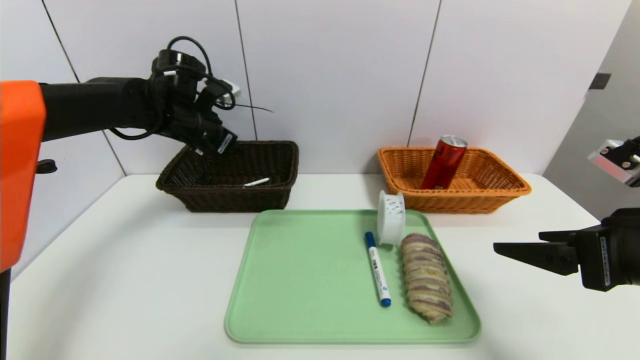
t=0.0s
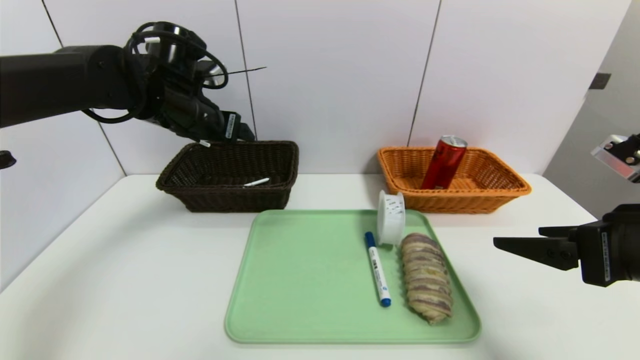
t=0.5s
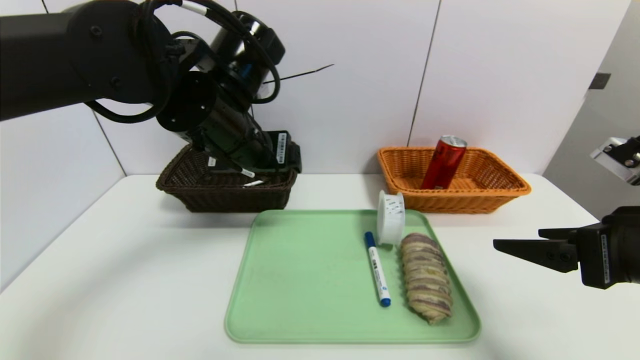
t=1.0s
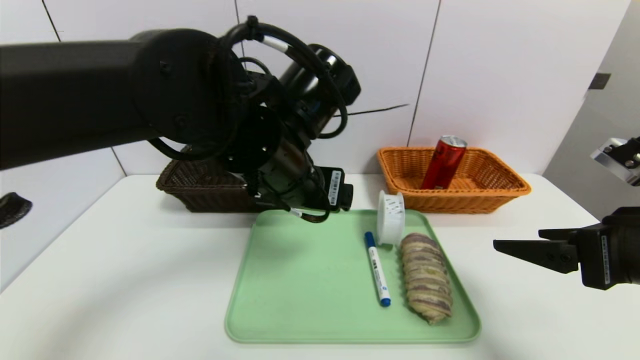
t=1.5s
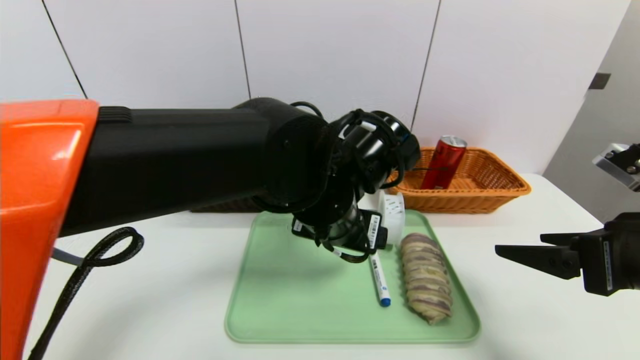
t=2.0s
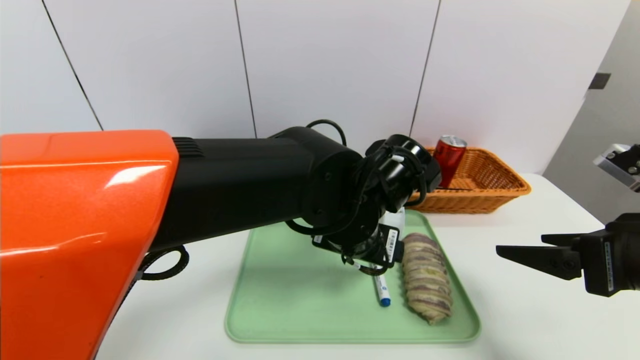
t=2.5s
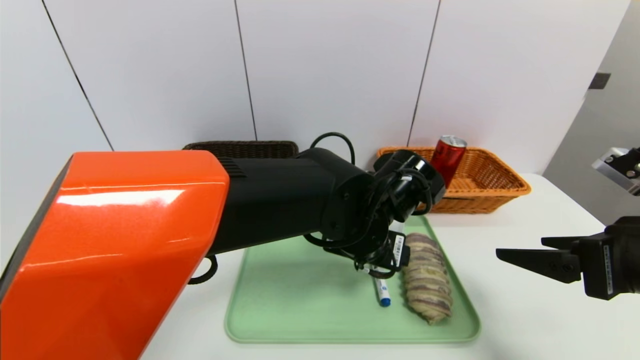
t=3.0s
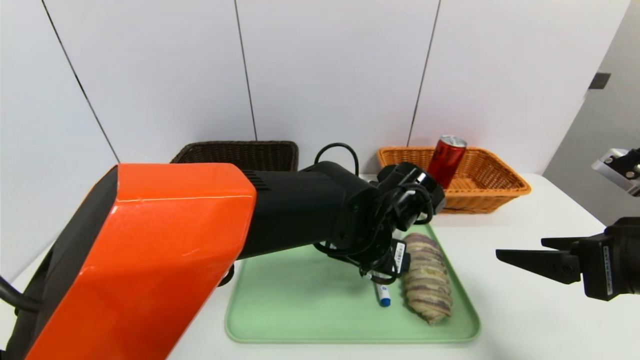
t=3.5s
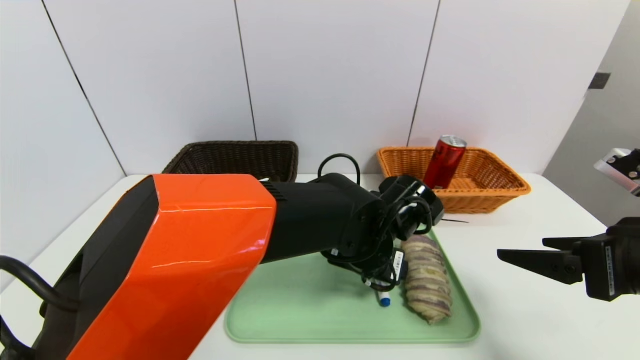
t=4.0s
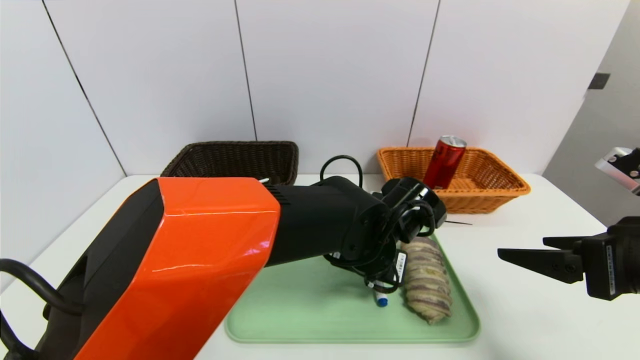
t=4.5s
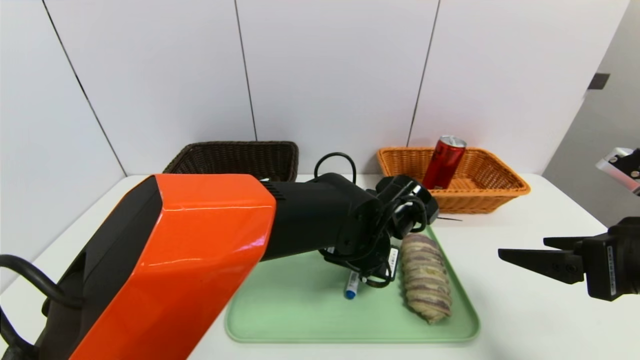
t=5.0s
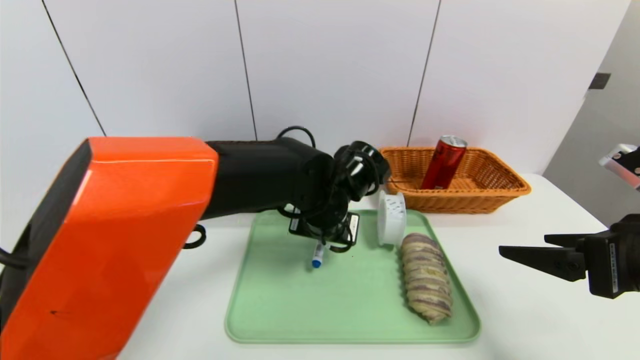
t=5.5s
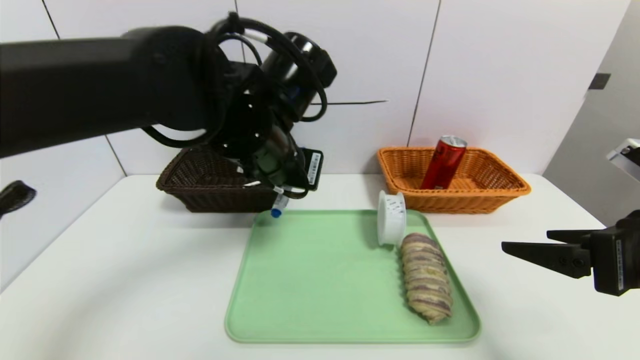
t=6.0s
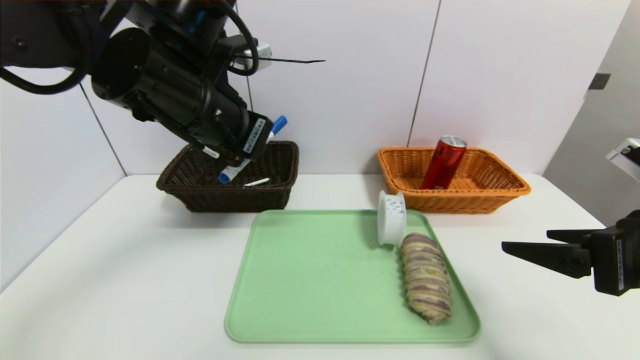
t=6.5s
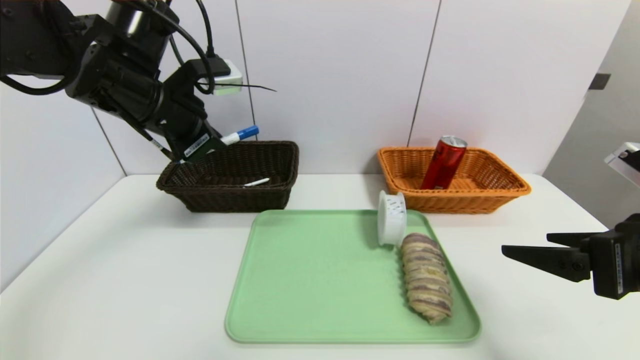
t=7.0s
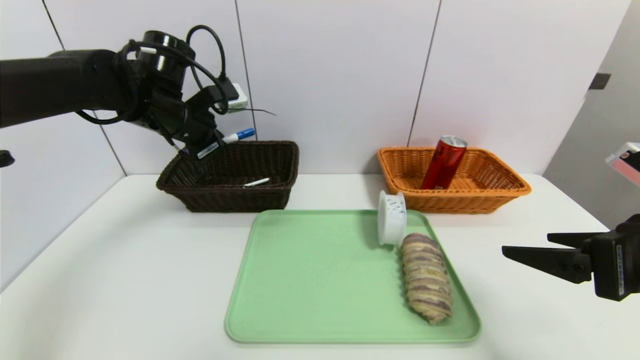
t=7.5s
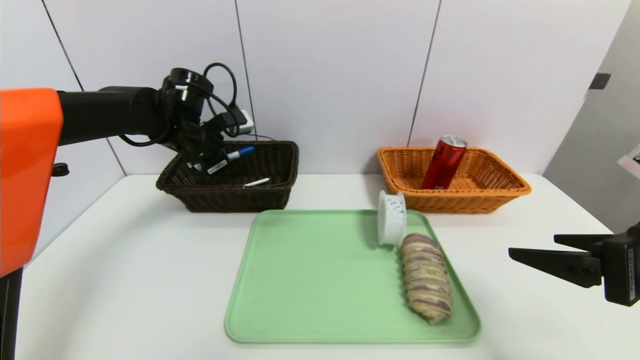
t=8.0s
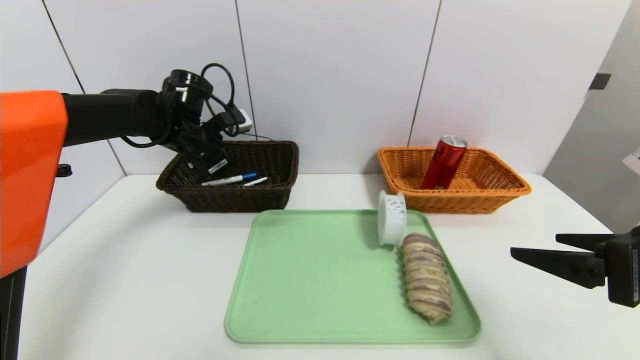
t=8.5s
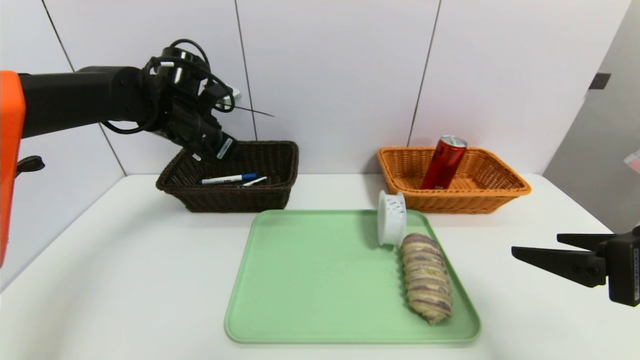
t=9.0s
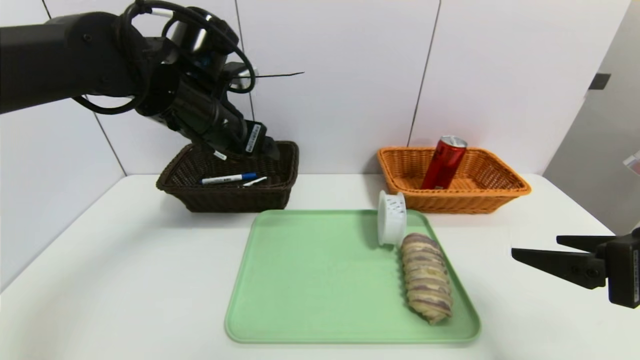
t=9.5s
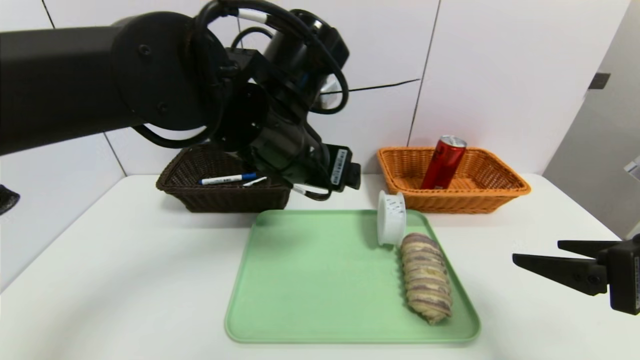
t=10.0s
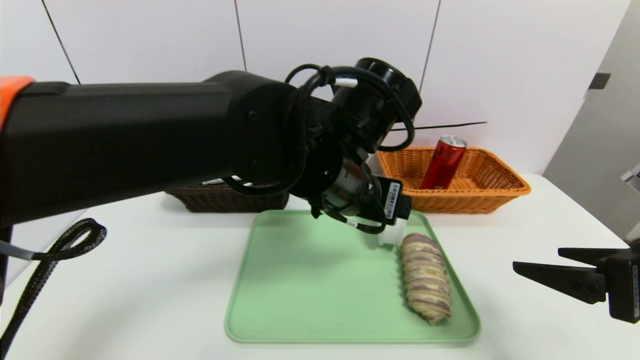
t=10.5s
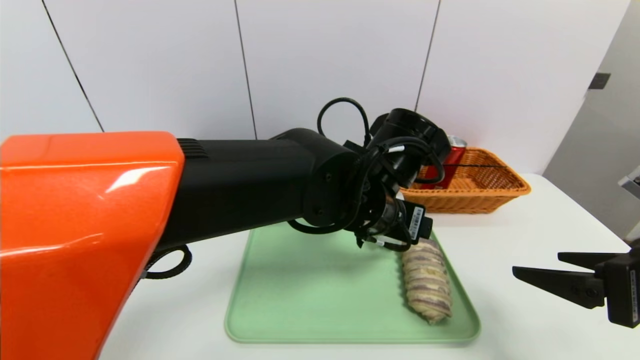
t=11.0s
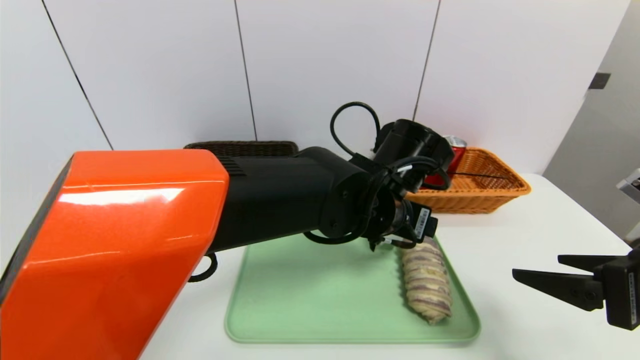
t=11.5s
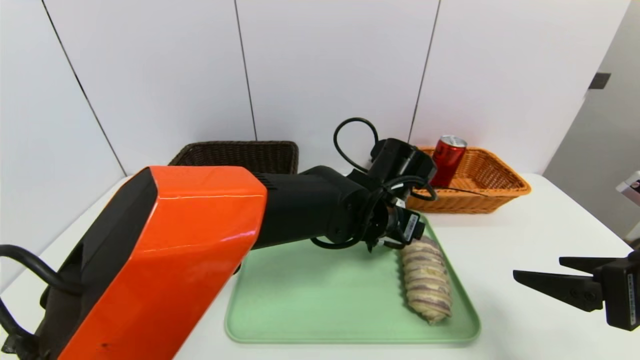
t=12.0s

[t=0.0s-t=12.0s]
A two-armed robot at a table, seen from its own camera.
Task of the whole recording: place the food in the right basket with the right gripper, and place the non food items in the left basket with the left gripper.
Step, t=0.5s to t=9.0s: Grasp the blue marker and put it in the left basket.
t=0.0s to t=2.0s: The left gripper shifts roughly 30 cm to the right and backward.
t=2.0s to t=4.0s: The left gripper travels downward and to the right by about 10 cm.
t=4.0s to t=6.0s: The left gripper goes some 20 cm upward and to the left, and closes.
t=6.0s to t=8.0s: The left gripper goes some 25 cm forward and to the left.
t=8.0s to t=10.0s: The left gripper moves to the right and backward, roughly 25 cm, and opens.
t=10.0s to t=12.0s: The left gripper travels downward and to the right by about 15 cm.

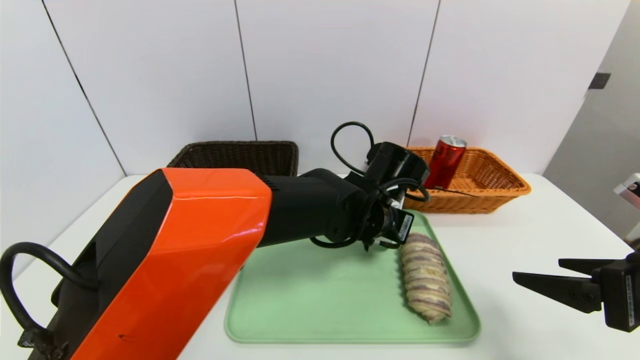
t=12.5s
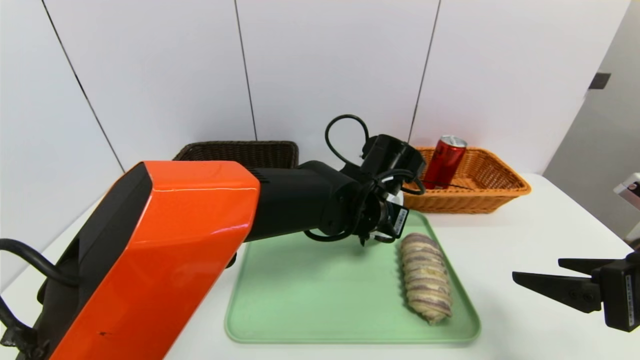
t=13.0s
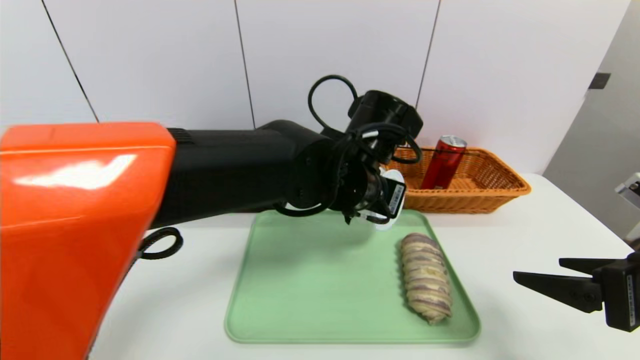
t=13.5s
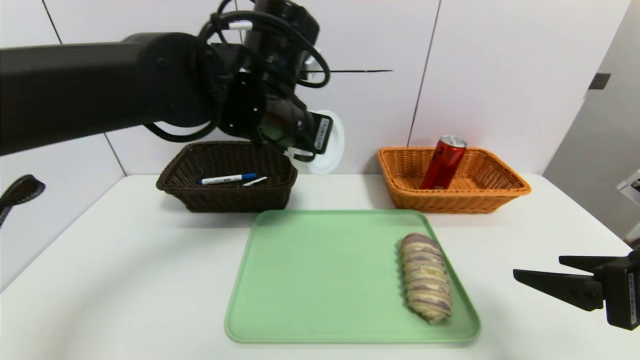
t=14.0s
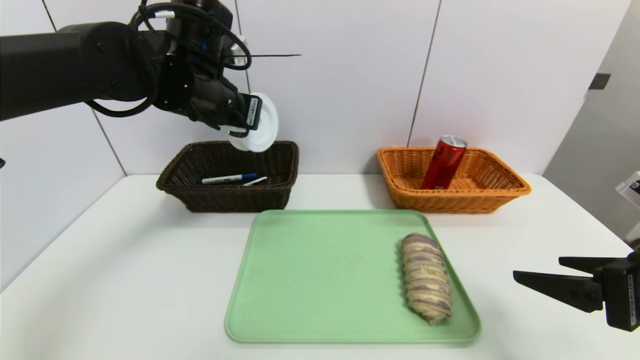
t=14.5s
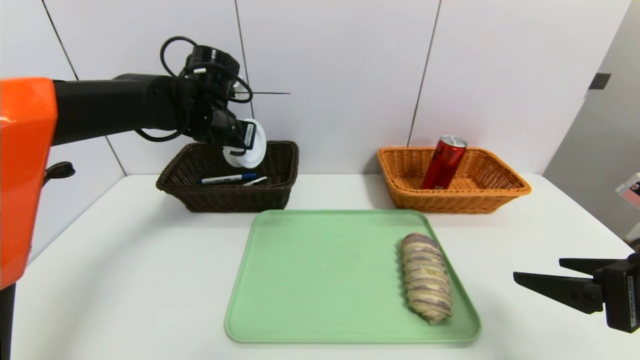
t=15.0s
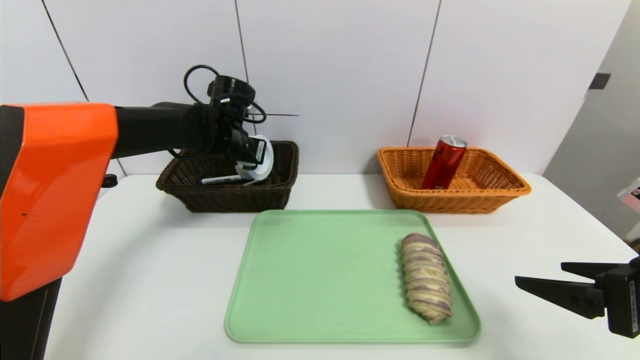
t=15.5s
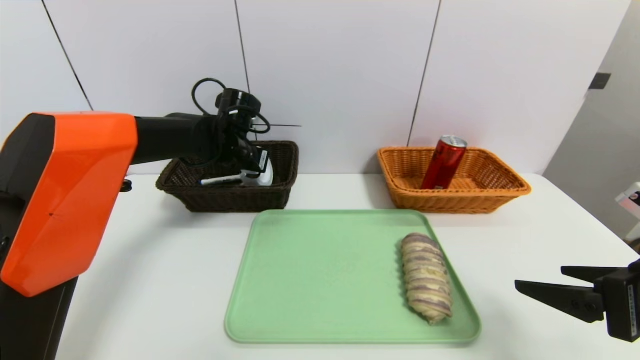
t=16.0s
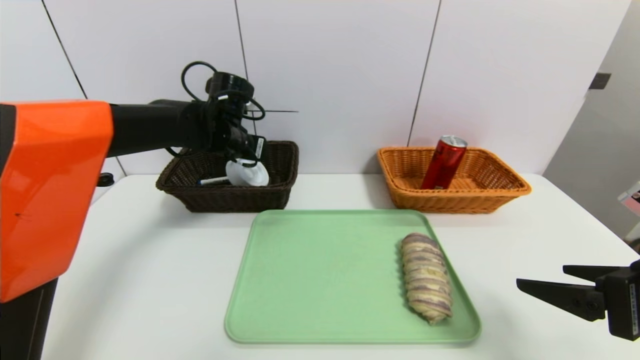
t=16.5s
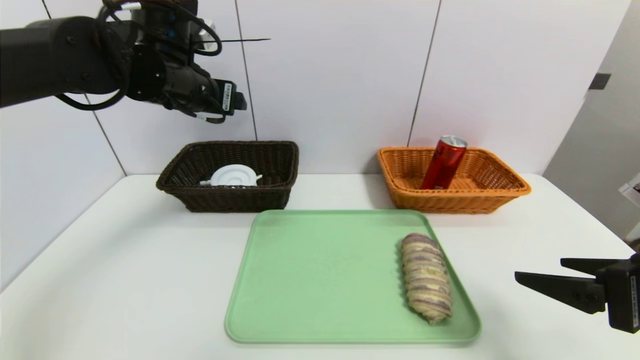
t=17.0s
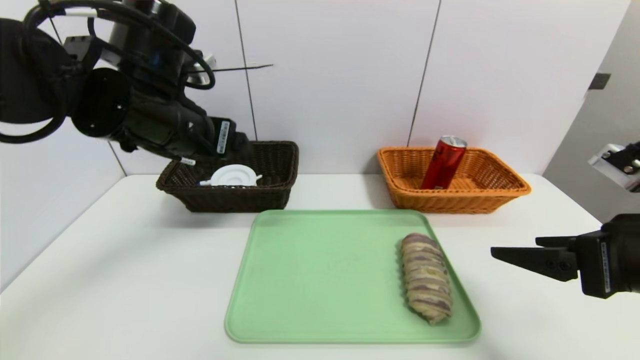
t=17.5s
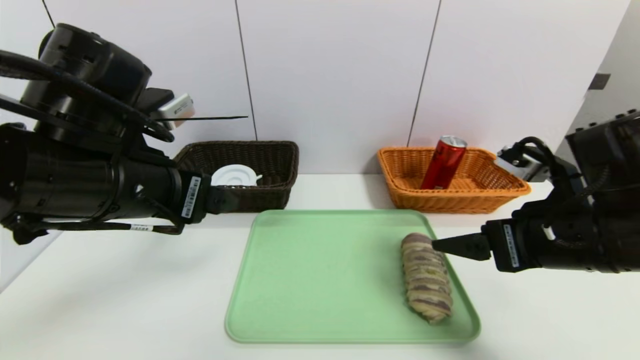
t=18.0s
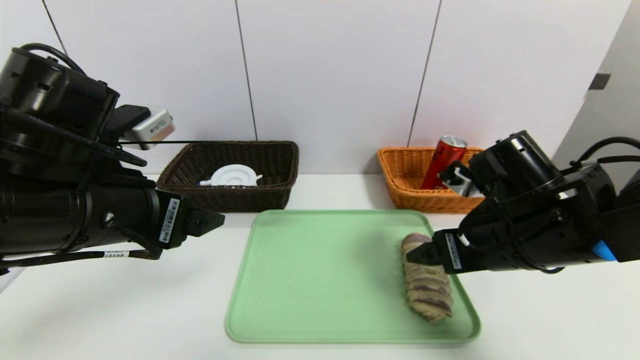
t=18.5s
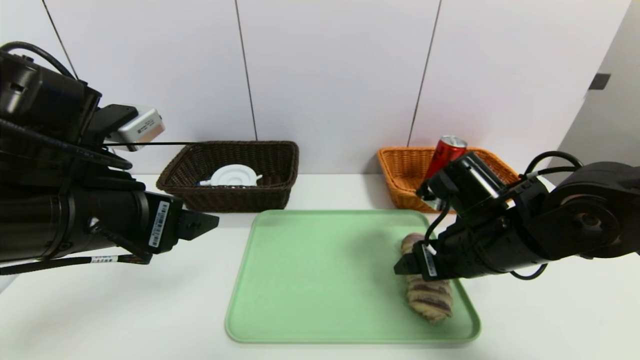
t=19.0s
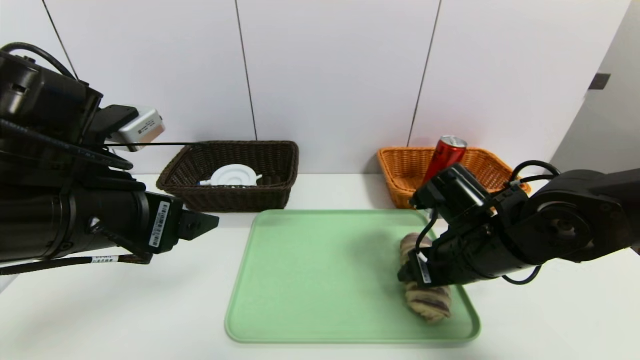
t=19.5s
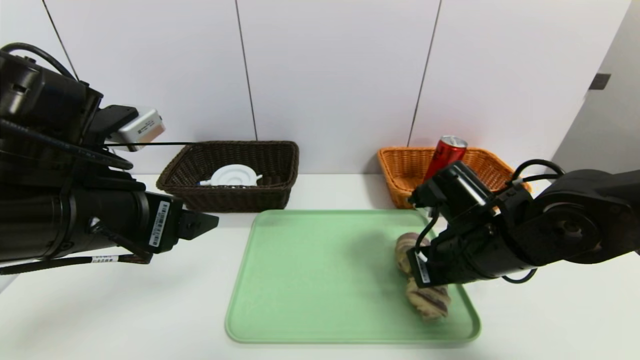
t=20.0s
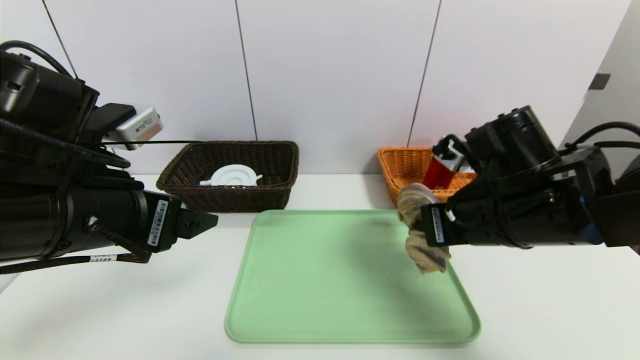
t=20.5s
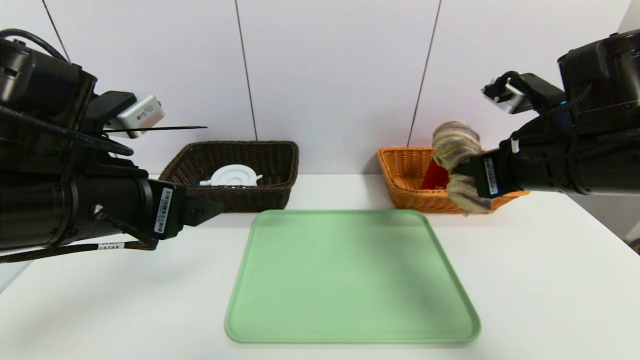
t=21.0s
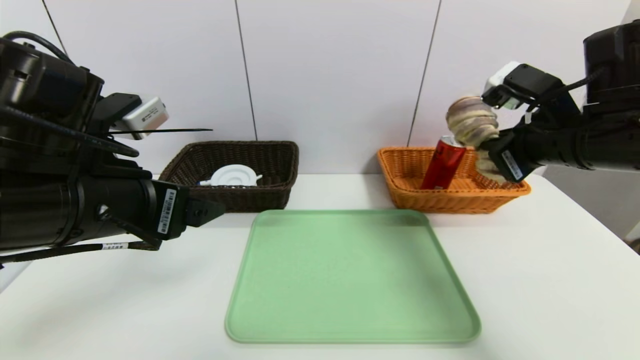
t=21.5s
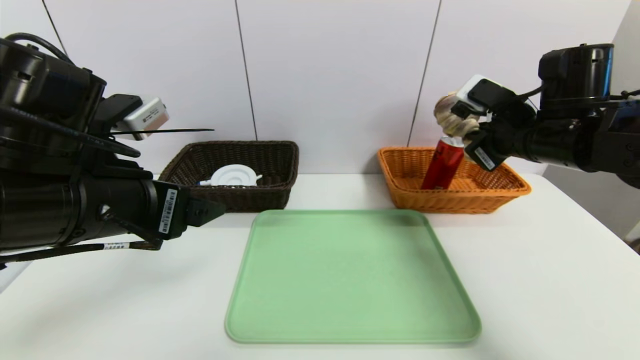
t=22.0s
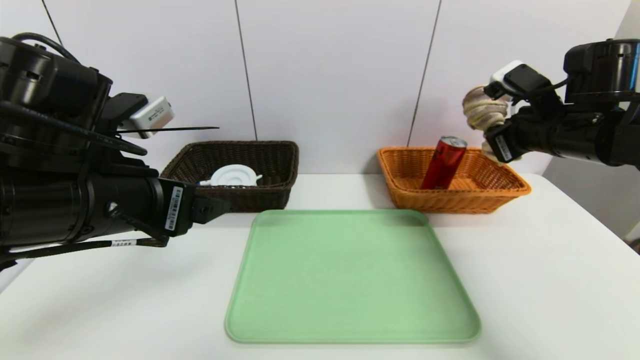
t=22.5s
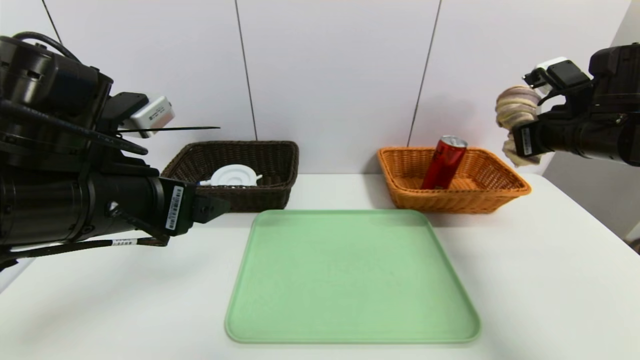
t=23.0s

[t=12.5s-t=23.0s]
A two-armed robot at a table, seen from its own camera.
Task of the whole recording: place the food in the right basket with the right gripper, and place the non food items in the left basket with the left gripper.
Step, t=12.5s to t=16.5s: Grasp the tape and put it in the left basket.
t=12.5s to t=14.5s: The left gripper is displaced to the left and upward by approximately 25 cm.
t=14.5s to t=16.5s: The left gripper shifts about 10 cm downward and forward, and opens up.
t=16.5s to t=19.0s: The right gripper heads to the left and forward, covering approximately 15 cm, while the left gripper travels backward by some 25 cm.
t=19.0s to t=21.0s: The right gripper is displaced upward and to the right by approximately 10 cm, and closes.
t=21.0s to t=23.0s: The right gripper moves to the right and forward, approximately 15 cm.
